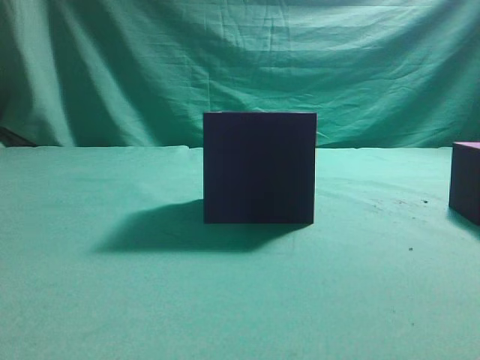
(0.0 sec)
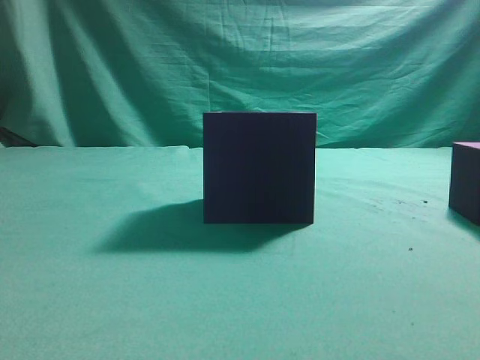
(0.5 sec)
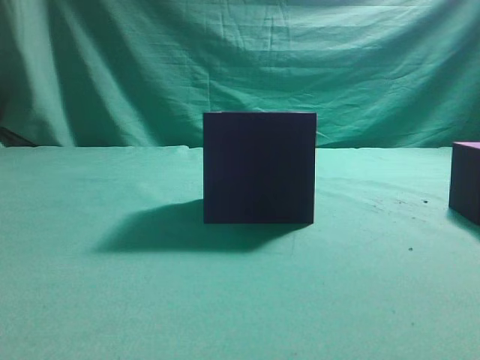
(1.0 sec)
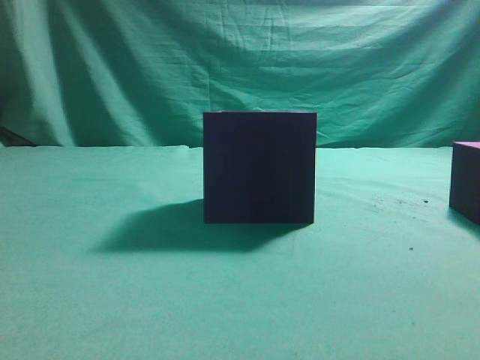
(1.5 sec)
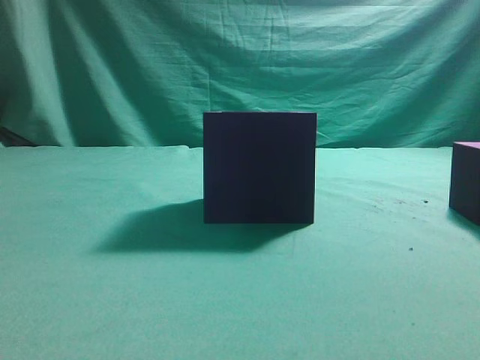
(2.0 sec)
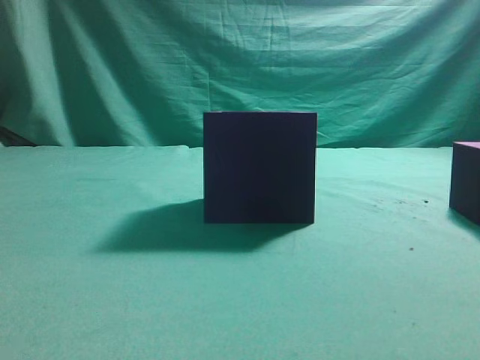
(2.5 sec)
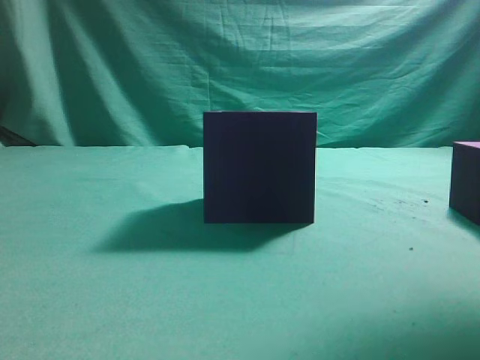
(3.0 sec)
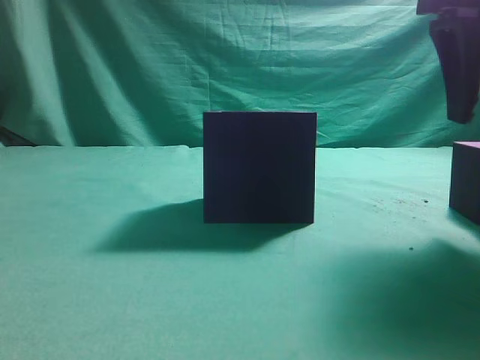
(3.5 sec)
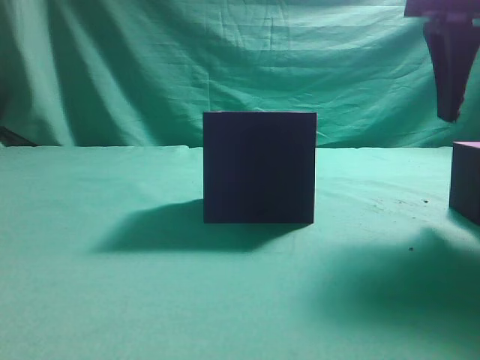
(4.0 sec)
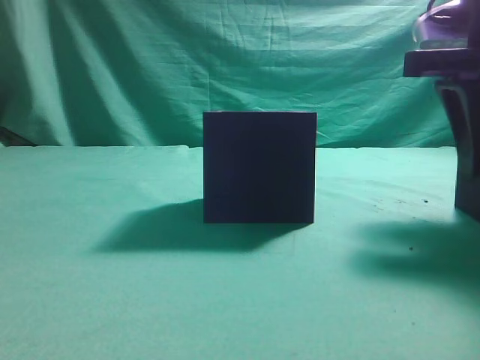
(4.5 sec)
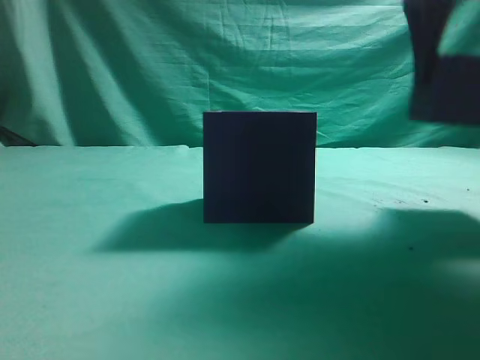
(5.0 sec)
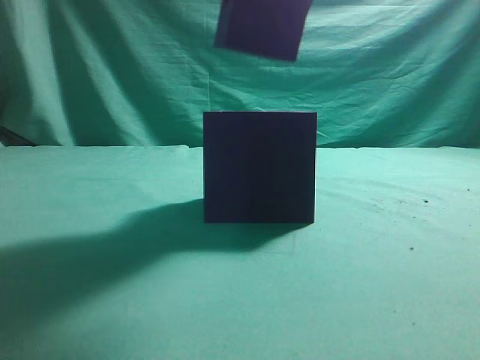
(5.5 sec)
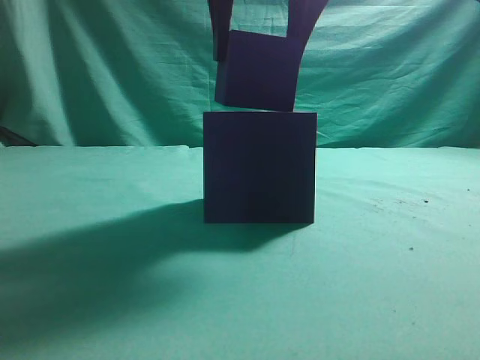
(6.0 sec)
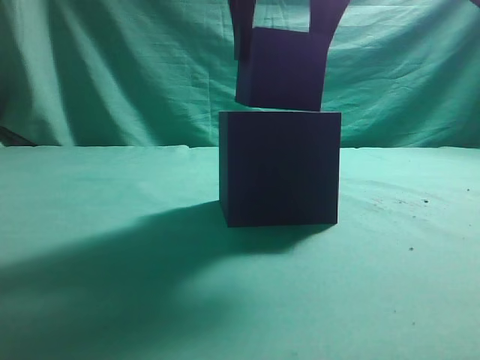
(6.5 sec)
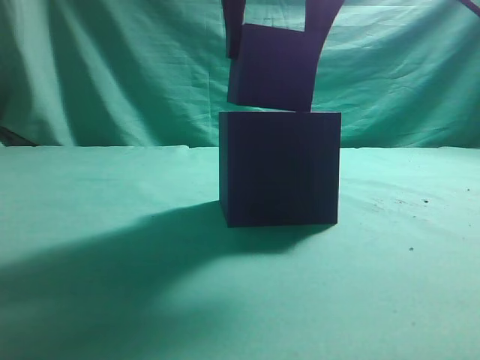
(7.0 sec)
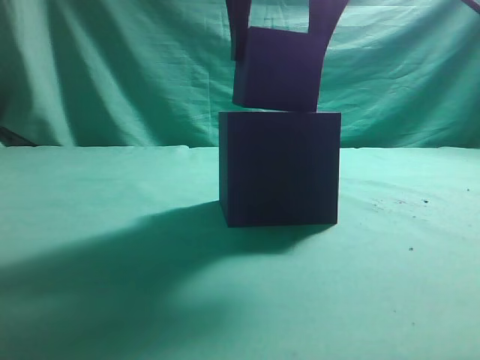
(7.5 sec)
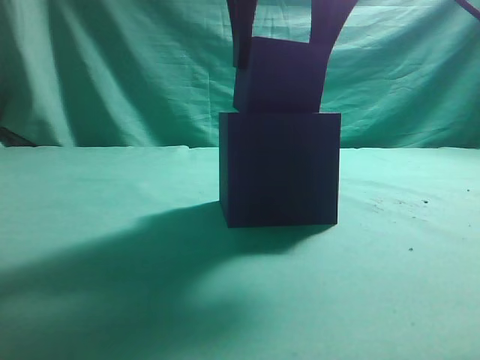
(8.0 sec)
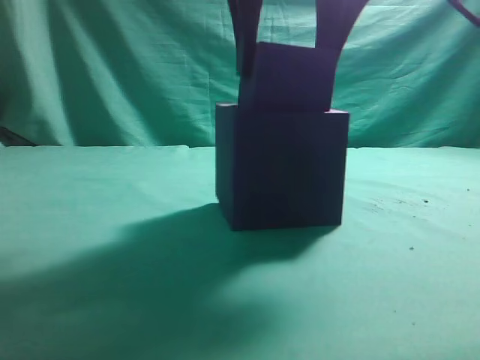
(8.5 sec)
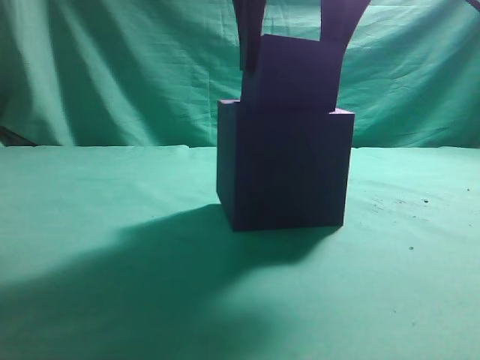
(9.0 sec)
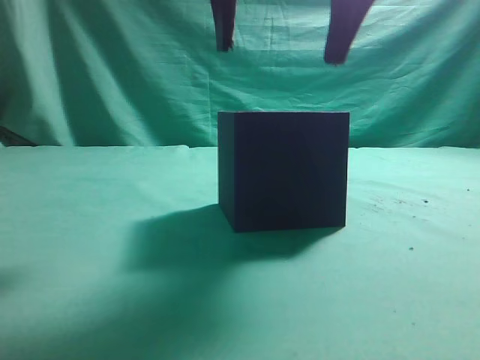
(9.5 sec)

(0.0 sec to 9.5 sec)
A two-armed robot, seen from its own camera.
Task of the whole recording: pick up the cube block and place it into the cube groove.
Step, 0.0 sec - 4.5 sec: Grasp the cube.
2.0 sec - 4.0 sec: The right gripper is displaced forward by some 20 cm, and opens up.
4.0 sec - 5.5 sec: The right gripper shifts about 15 cm to the left and upward.
7.5 sec - 9.5 sec: The grippers make only small movements.
